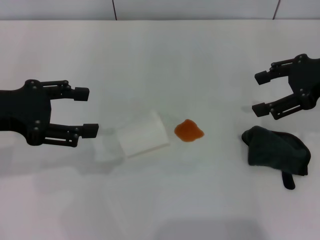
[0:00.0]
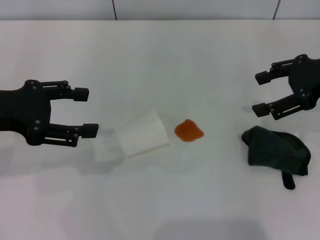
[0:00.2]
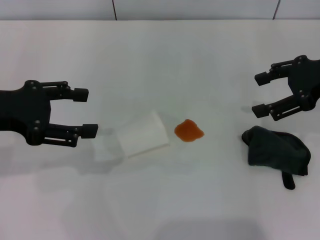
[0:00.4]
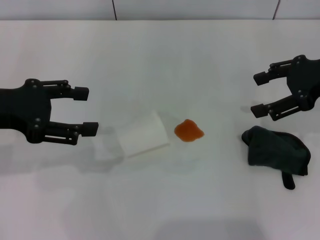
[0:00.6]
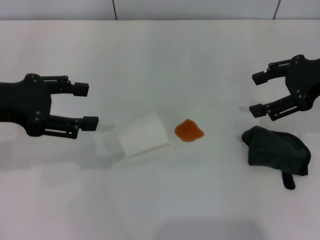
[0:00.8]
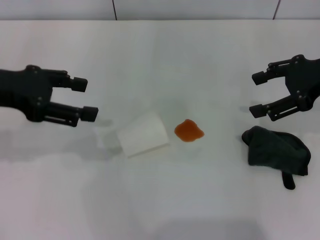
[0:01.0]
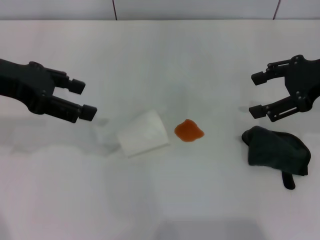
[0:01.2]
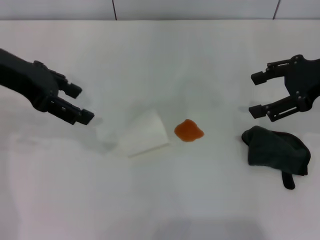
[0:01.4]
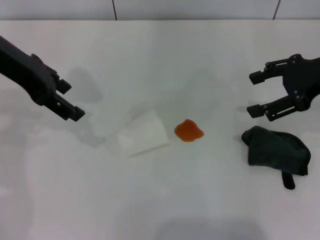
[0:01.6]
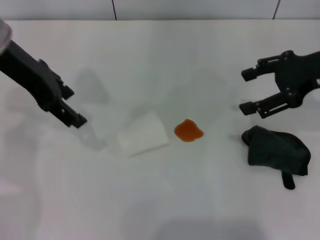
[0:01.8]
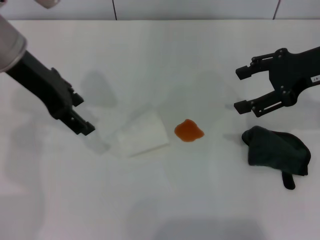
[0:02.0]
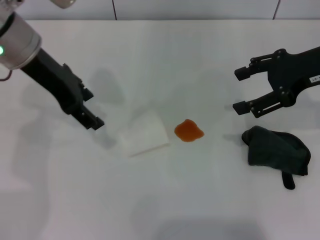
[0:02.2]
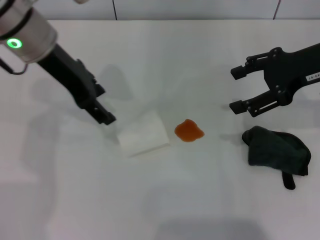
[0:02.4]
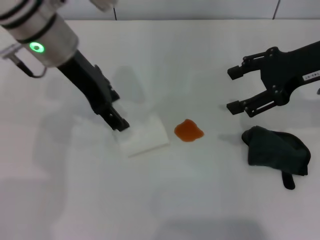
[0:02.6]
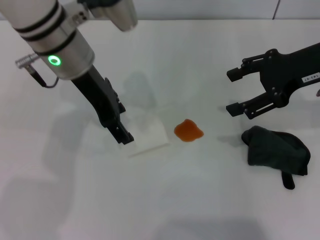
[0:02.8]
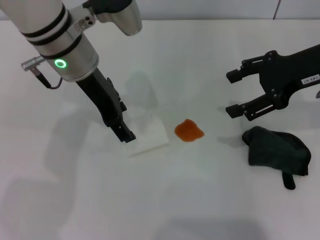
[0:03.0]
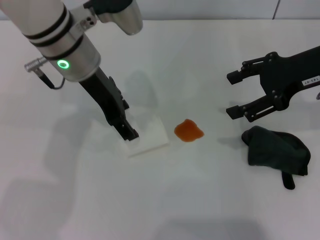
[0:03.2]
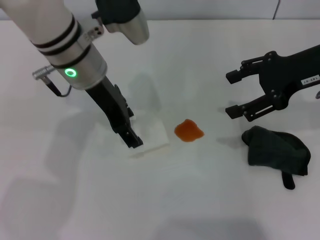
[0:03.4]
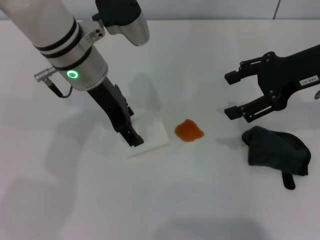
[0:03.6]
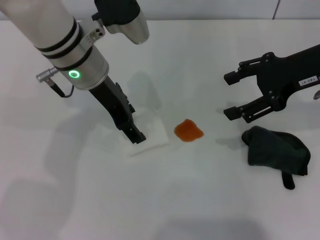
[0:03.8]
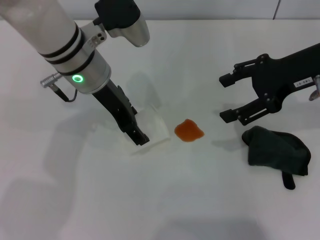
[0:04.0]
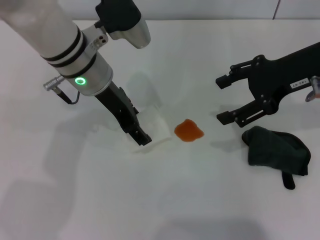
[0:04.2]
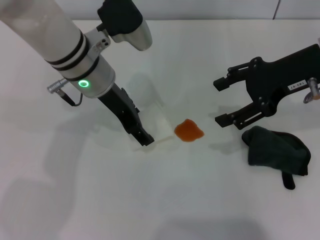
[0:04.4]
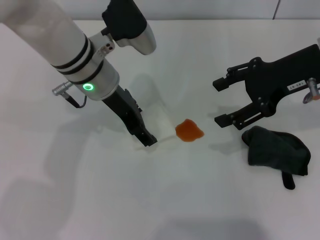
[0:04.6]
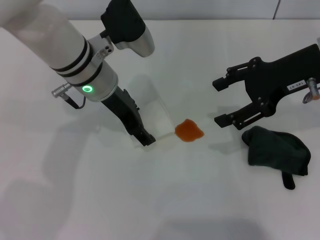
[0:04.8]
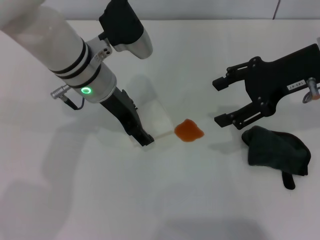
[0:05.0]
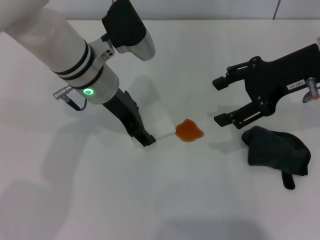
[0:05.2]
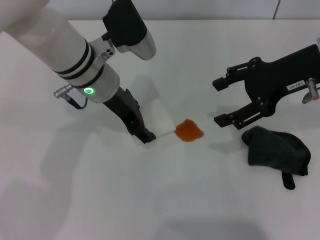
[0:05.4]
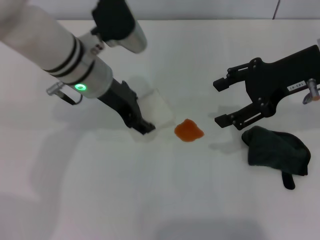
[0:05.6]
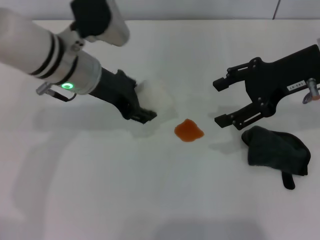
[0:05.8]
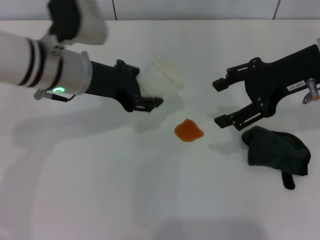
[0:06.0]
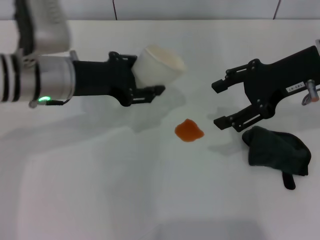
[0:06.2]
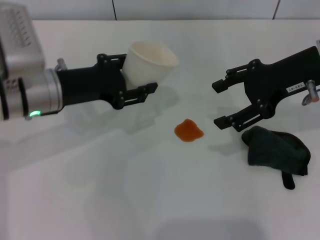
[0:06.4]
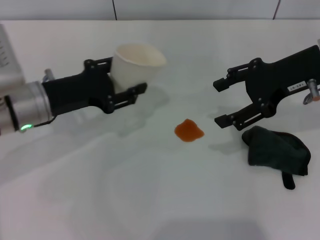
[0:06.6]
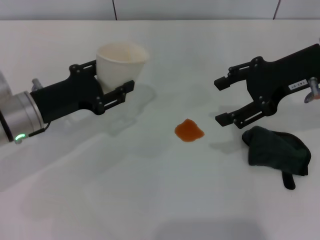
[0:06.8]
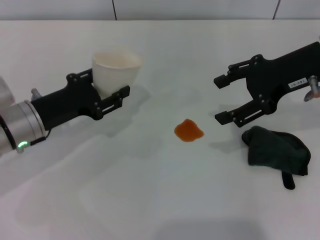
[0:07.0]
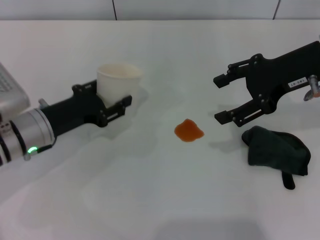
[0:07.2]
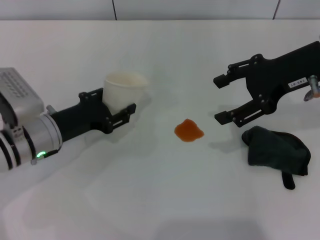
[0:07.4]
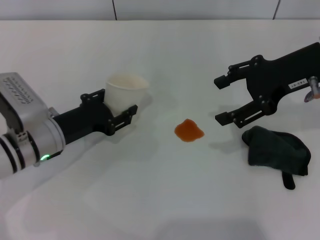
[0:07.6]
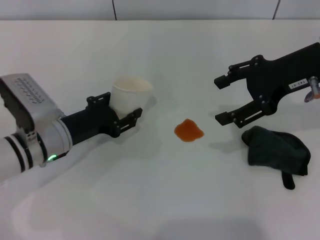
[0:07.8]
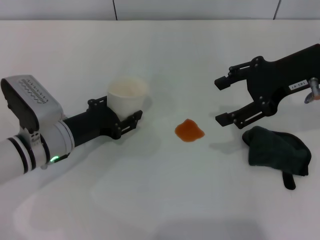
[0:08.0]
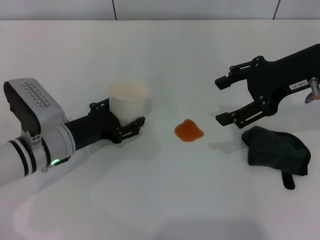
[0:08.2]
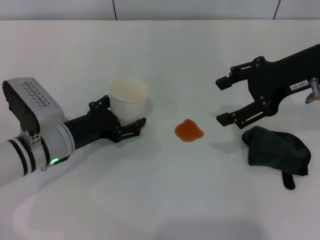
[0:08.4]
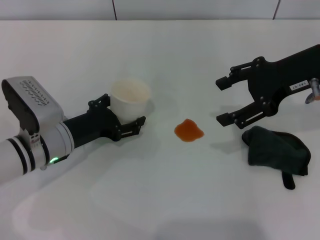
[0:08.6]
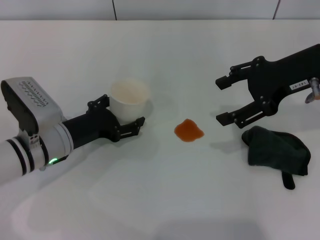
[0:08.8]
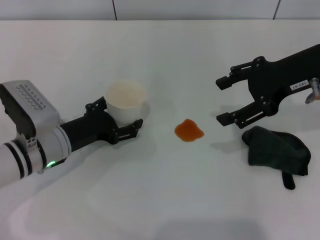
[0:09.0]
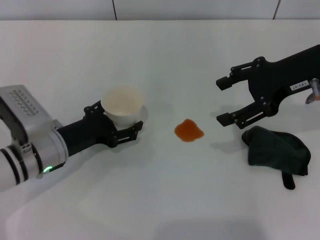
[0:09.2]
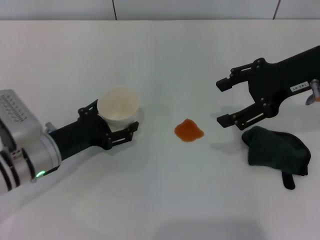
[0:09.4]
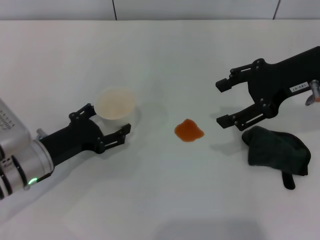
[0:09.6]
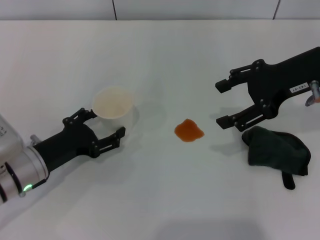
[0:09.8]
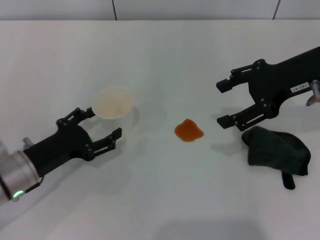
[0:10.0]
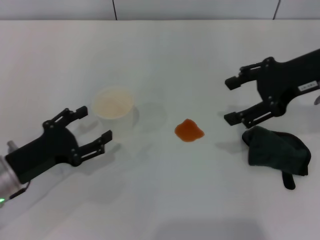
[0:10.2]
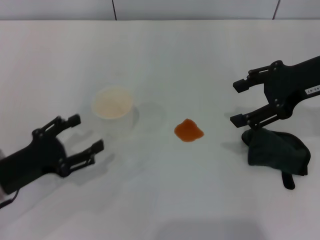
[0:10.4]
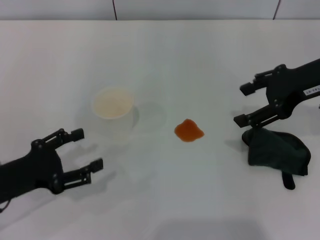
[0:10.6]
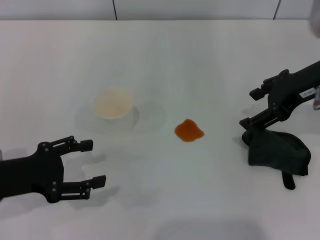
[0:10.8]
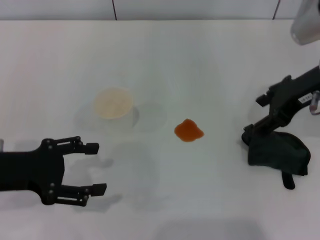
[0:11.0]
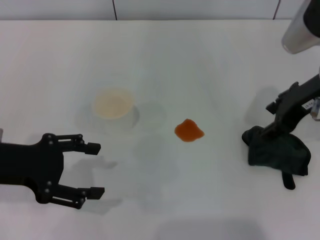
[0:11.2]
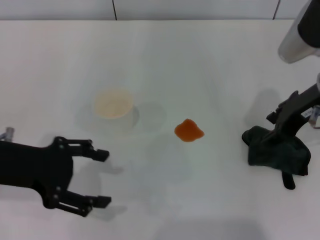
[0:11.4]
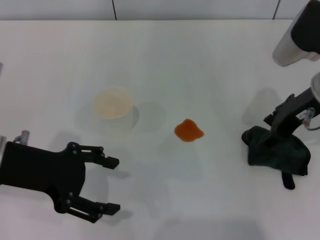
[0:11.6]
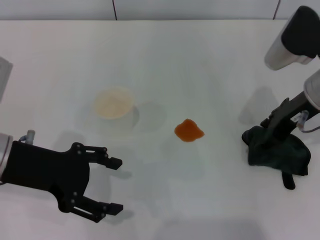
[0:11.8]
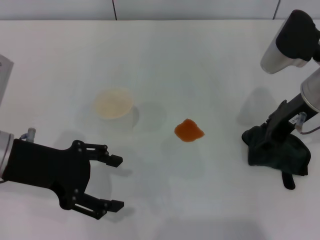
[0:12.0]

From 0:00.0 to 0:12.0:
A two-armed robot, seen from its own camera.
Step, from 0:00.0 to 0:05.2: Grasp the paper cup with the left gripper.
Step, from 0:05.4 to 0:10.0: Stand the paper cup upright with the left gripper.
From 0:00.0 to 0:01.6: The left gripper travels forward, upward and to the right by about 10 cm.
From 0:01.6 to 0:03.0: The left gripper shifts approximately 10 cm to the right and downward.
From 0:03.0 to 0:04.4: There are only small adjustments of the grippers.
From 0:04.4 to 0:06.0: The left gripper closes up.
From 0:06.0 to 0:07.6: The left gripper travels downward, to the left and backward by roughly 15 cm.
From 0:07.6 to 0:09.0: The left gripper opens up.
From 0:09.0 to 0:10.4: The left gripper heads backward and to the left, covering roughly 10 cm.
From 0:10.4 to 0:12.0: The right gripper moves approximately 5 cm, while the left gripper travels upward by some 10 cm.

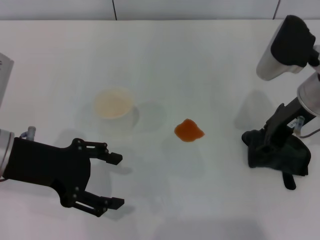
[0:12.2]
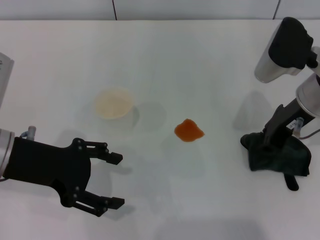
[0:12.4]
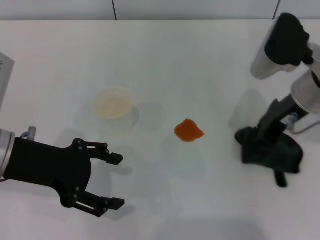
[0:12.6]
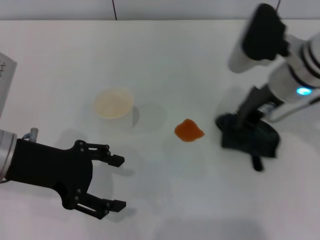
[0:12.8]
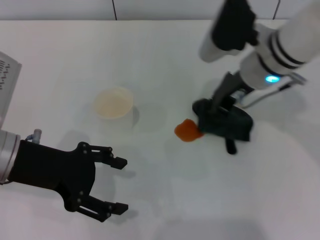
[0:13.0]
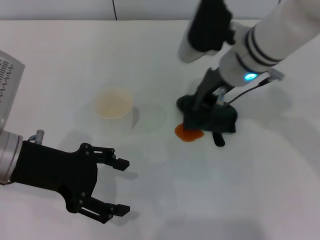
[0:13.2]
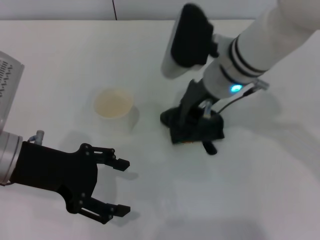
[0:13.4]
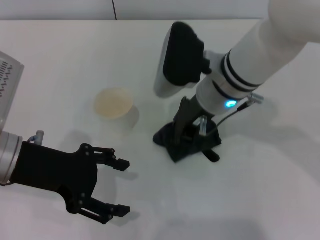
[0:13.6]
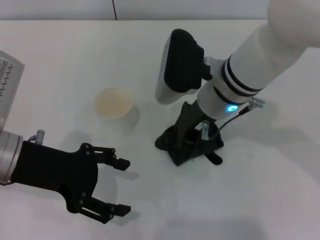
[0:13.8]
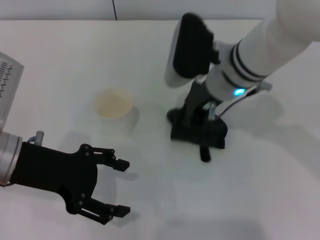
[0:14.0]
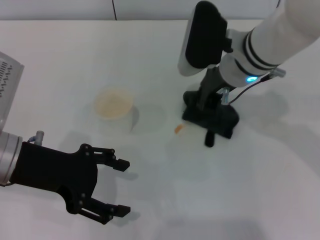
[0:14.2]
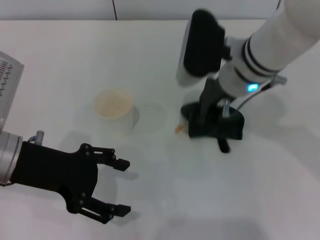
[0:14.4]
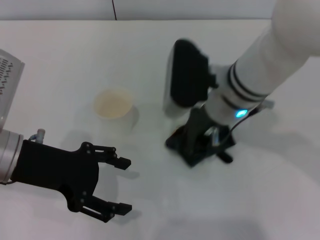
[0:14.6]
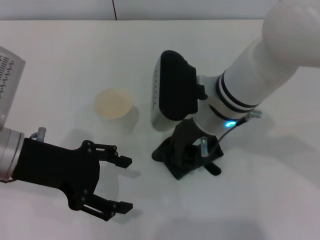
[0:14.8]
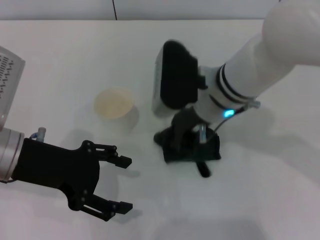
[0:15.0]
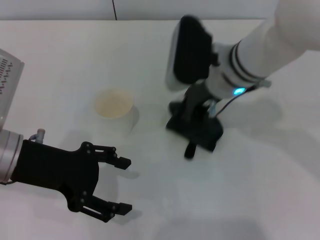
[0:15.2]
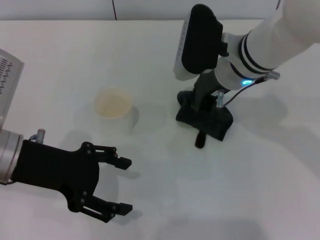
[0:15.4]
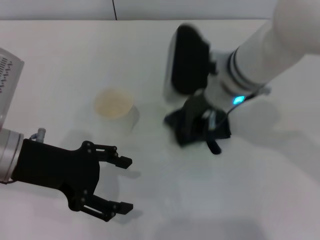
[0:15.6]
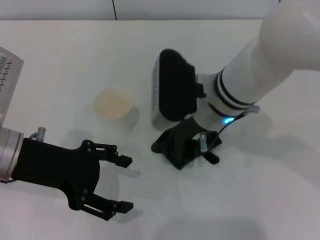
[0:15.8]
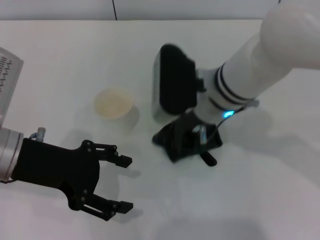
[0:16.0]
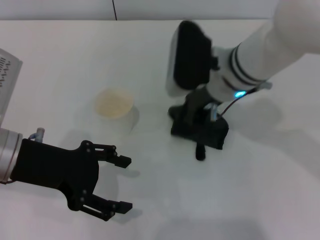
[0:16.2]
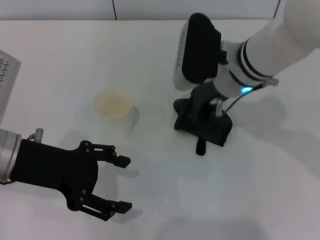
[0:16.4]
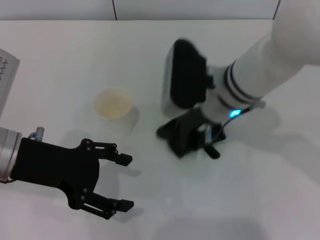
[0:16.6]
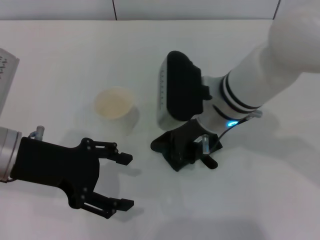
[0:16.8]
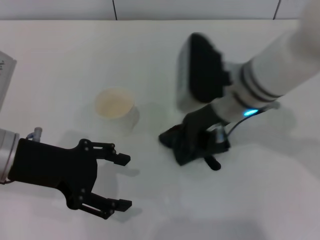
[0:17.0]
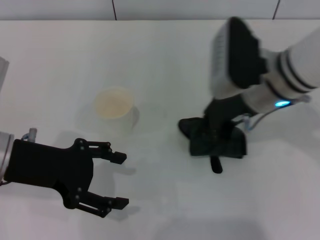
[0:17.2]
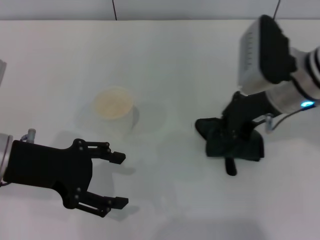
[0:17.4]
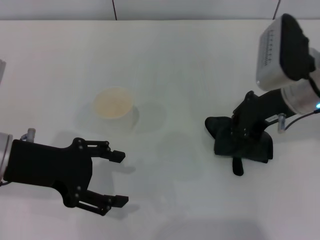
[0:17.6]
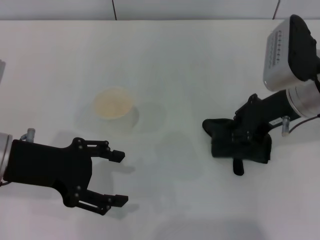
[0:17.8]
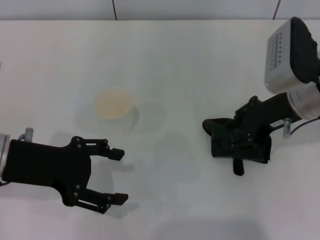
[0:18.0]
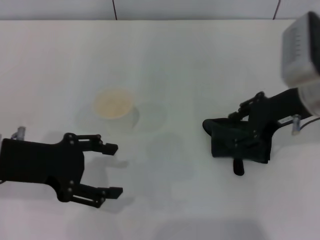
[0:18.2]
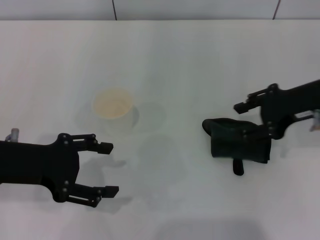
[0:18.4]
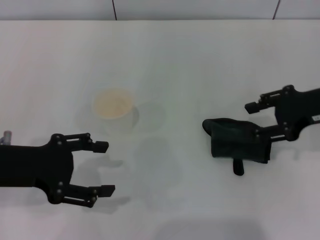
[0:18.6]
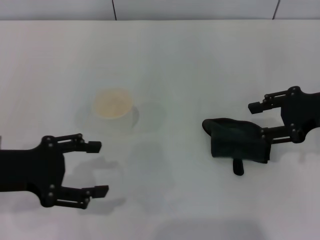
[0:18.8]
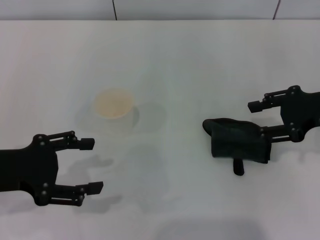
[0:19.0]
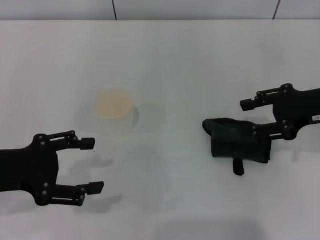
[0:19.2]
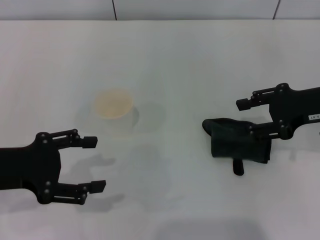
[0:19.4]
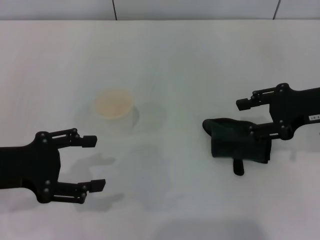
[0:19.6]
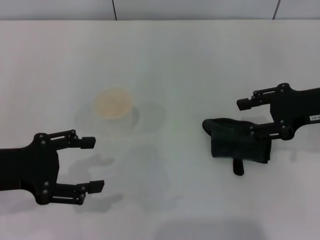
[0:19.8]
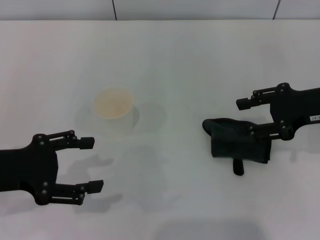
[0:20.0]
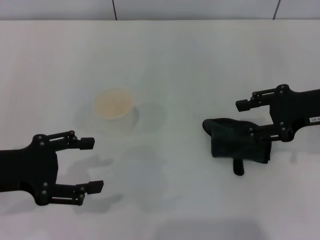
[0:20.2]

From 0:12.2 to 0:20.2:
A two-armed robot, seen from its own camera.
Step, from 0:12.4 to 0:17.2: Wipe the stains off the table with the right gripper.
Step, from 0:17.4 to 0:18.8: Place the rag on the table with the right gripper.
From 0:12.2 to 0:13.8: The right gripper is displaced to the left by approximately 15 cm, and closes.
From 0:13.8 to 0:15.4: The grippers make only small movements.
From 0:15.4 to 0:17.0: The right gripper goes forward and backward, approximately 5 cm each way, reversing 2 times.
From 0:17.0 to 0:18.6: The right gripper is displaced to the right by roughly 20 cm, and opens up.
From 0:18.6 to 0:20.2: The grippers stay close to where they were, moving slightly.

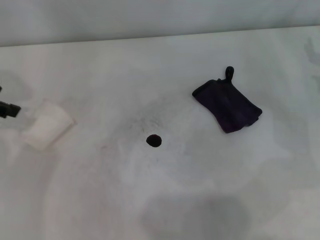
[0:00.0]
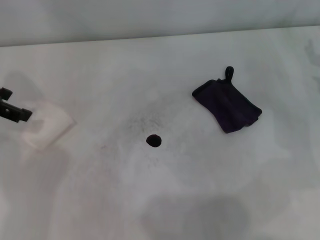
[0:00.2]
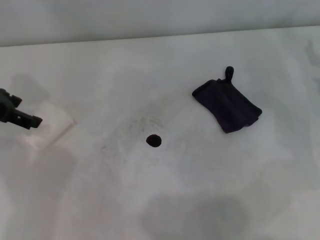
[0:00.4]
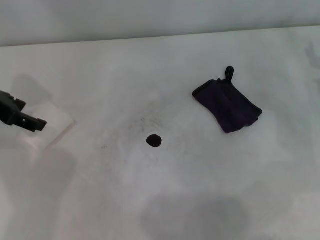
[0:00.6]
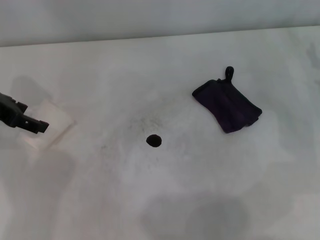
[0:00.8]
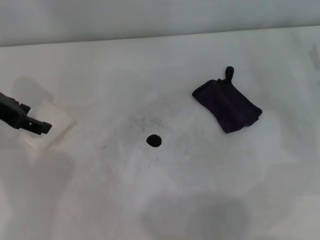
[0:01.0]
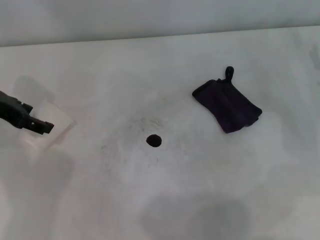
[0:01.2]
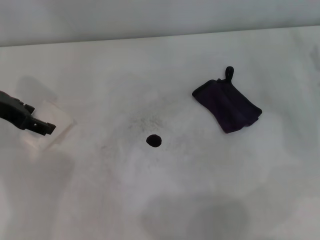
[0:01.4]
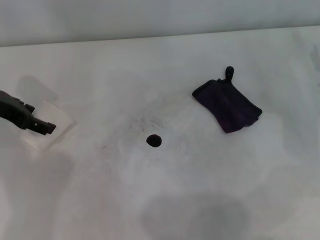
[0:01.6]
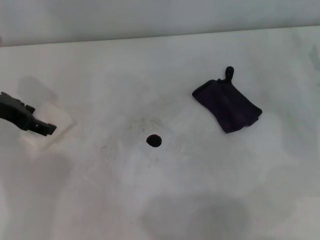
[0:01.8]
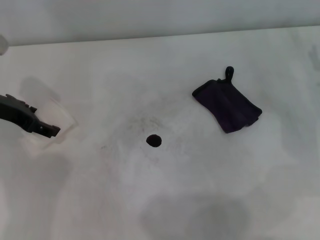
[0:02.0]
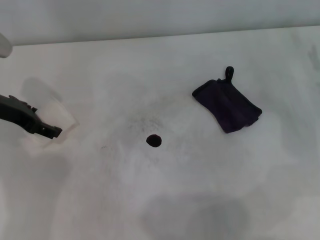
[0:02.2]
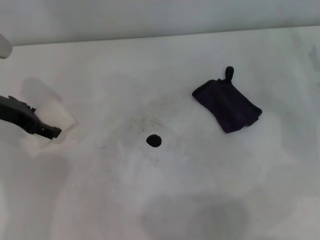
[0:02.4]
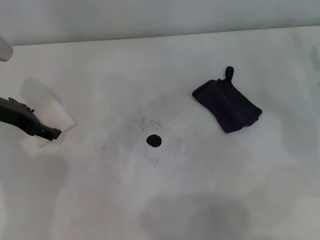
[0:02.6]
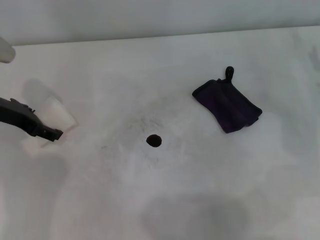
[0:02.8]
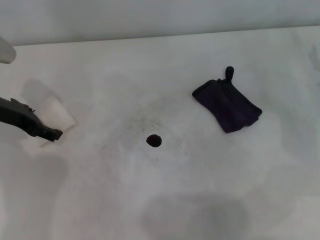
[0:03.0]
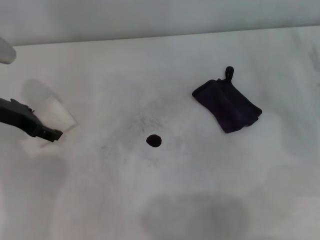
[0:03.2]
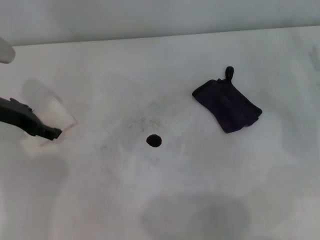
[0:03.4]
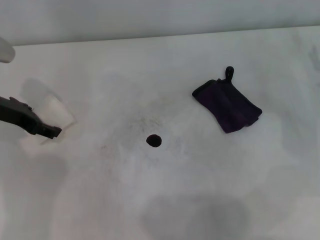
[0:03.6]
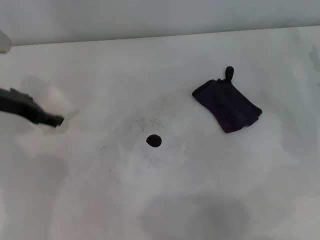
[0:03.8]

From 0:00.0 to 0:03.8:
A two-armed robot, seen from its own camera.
From 0:00.0 to 0:01.2: The left gripper goes about 5 cm downward.
From 0:01.2 to 0:03.8: There are only small adjustments of the grippers.
